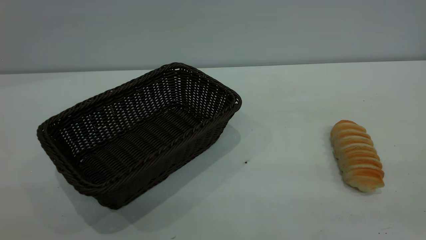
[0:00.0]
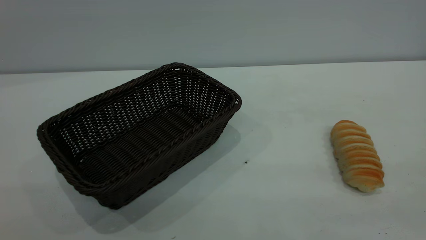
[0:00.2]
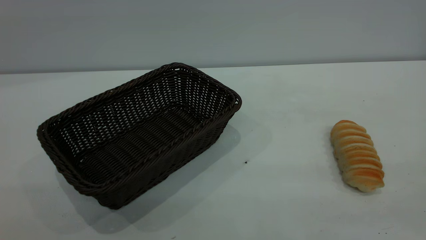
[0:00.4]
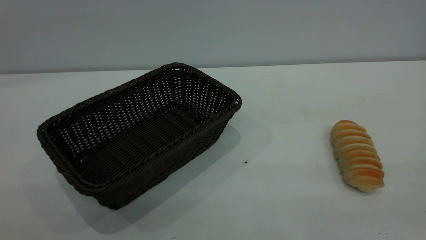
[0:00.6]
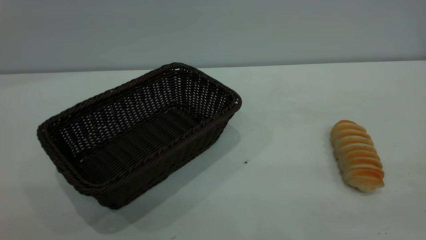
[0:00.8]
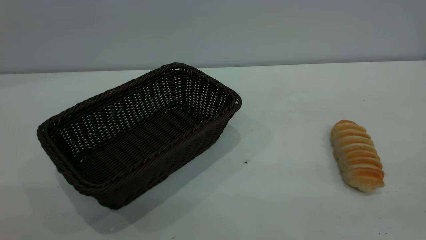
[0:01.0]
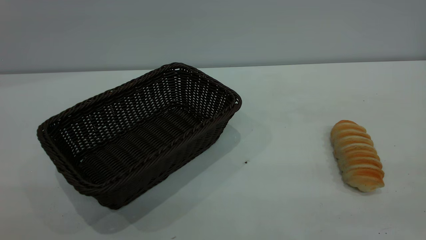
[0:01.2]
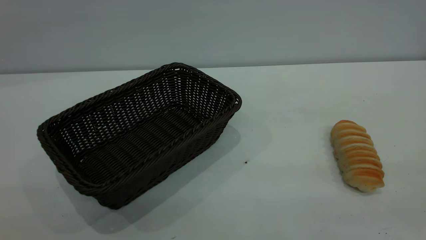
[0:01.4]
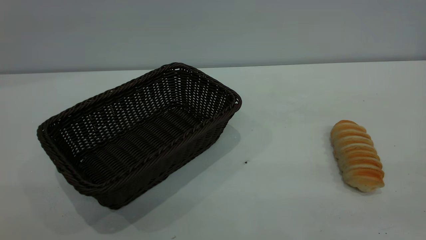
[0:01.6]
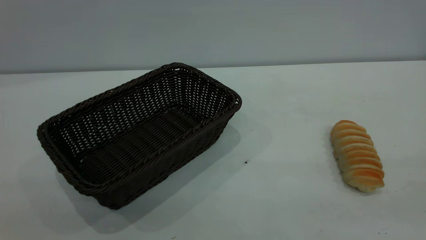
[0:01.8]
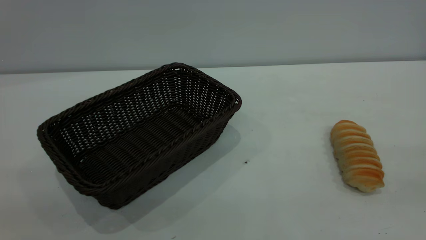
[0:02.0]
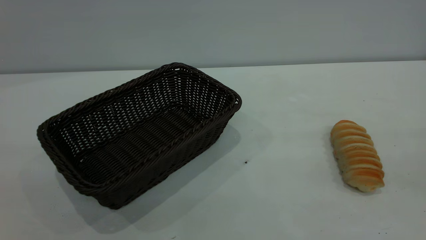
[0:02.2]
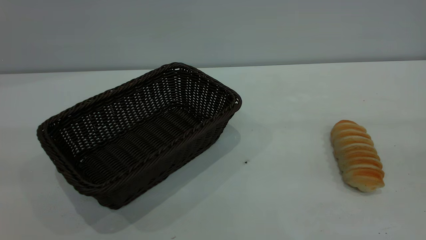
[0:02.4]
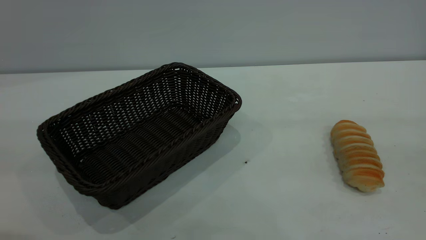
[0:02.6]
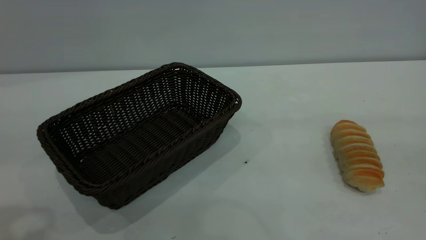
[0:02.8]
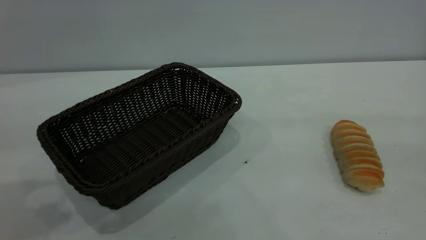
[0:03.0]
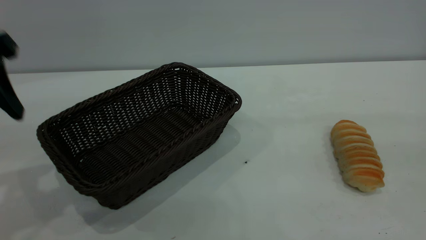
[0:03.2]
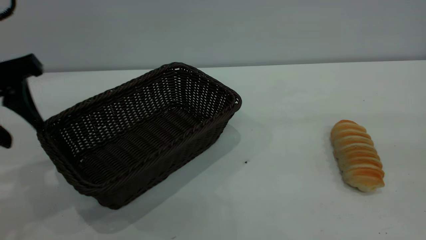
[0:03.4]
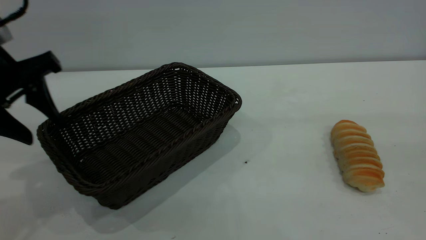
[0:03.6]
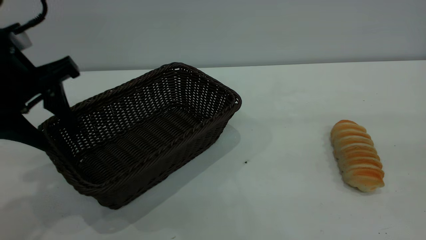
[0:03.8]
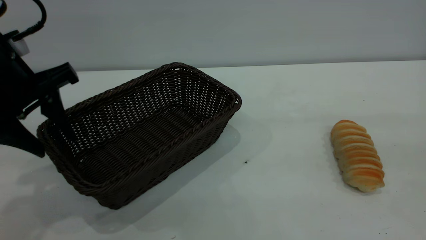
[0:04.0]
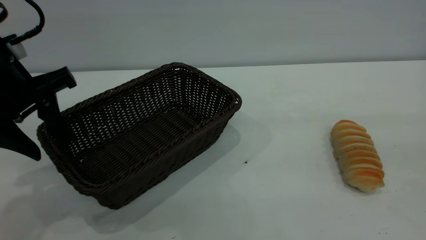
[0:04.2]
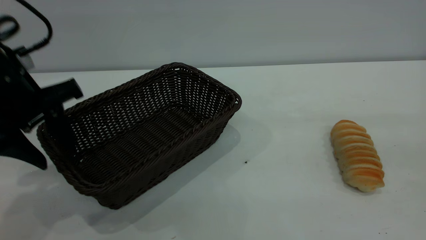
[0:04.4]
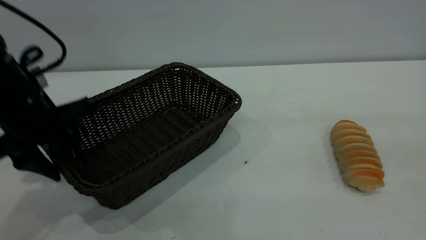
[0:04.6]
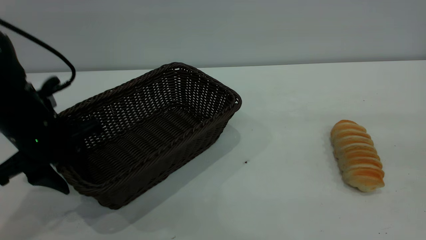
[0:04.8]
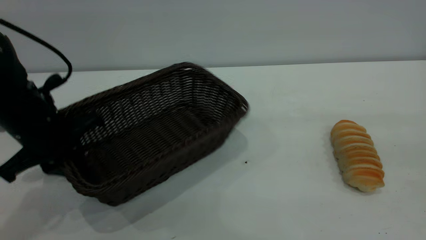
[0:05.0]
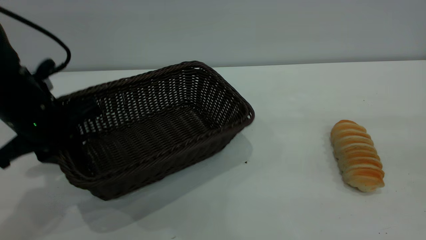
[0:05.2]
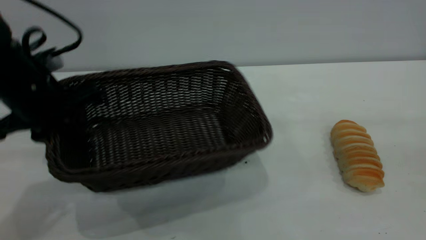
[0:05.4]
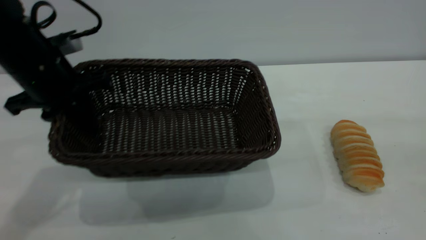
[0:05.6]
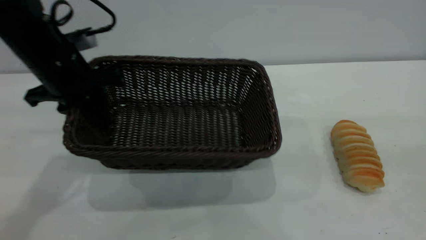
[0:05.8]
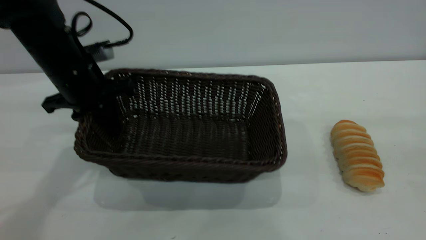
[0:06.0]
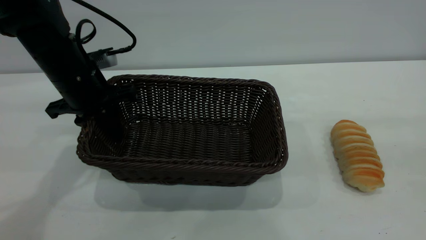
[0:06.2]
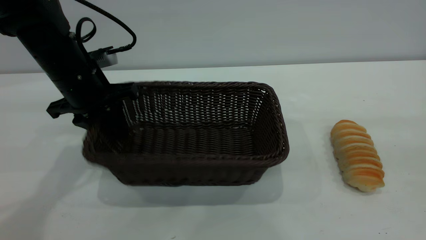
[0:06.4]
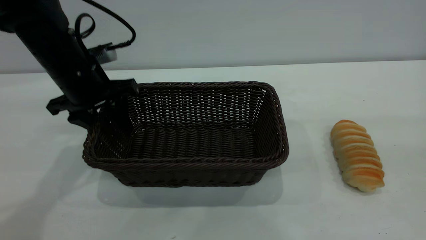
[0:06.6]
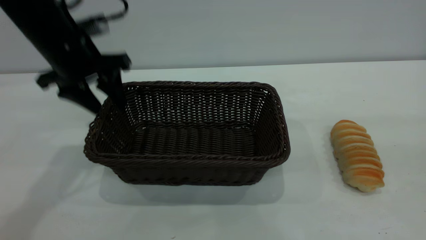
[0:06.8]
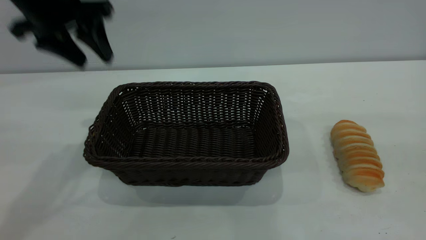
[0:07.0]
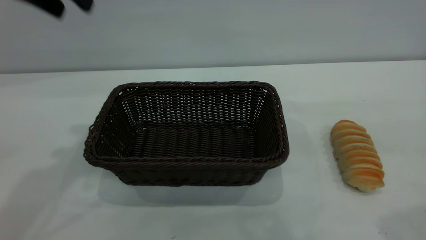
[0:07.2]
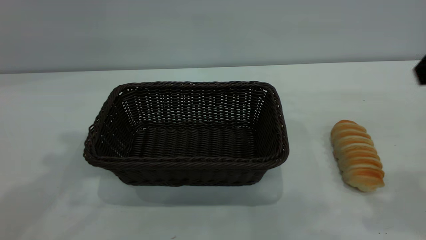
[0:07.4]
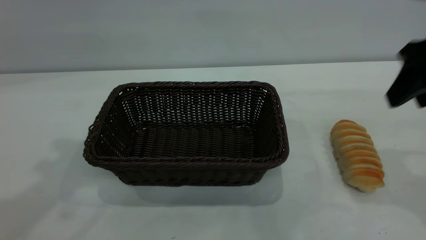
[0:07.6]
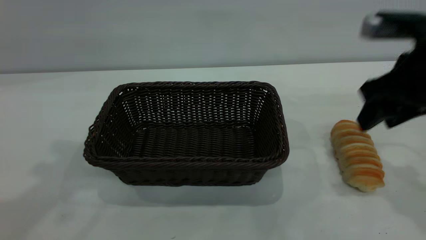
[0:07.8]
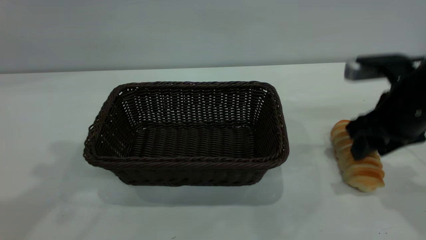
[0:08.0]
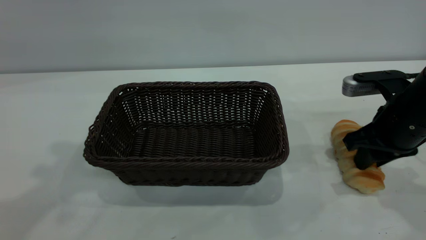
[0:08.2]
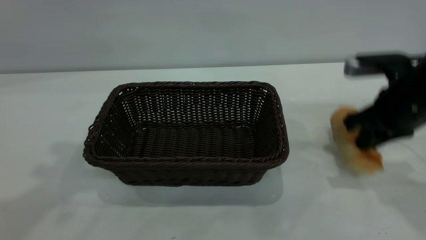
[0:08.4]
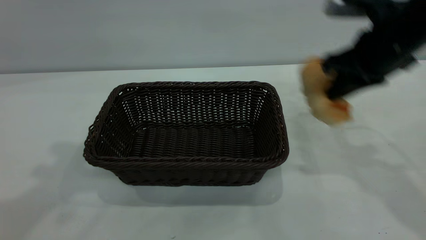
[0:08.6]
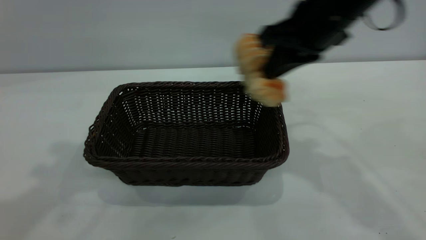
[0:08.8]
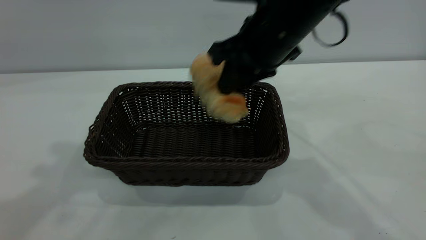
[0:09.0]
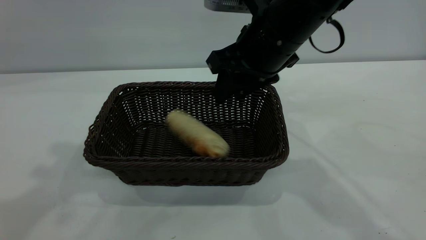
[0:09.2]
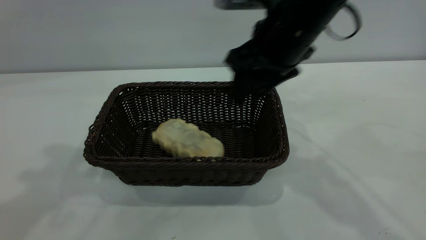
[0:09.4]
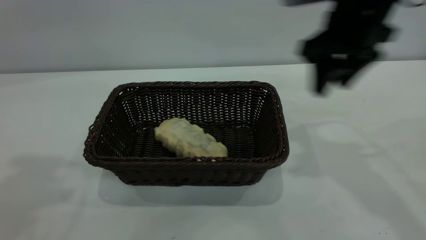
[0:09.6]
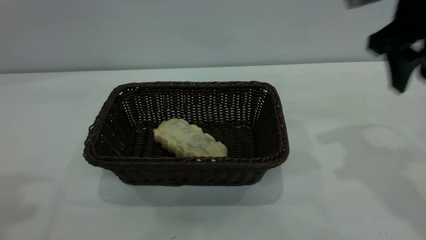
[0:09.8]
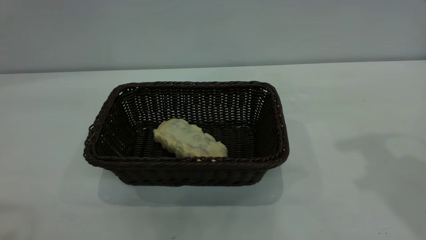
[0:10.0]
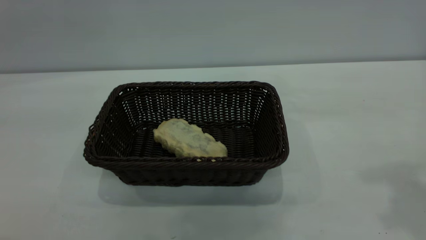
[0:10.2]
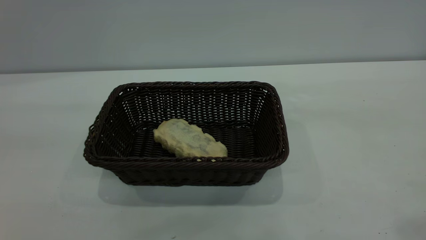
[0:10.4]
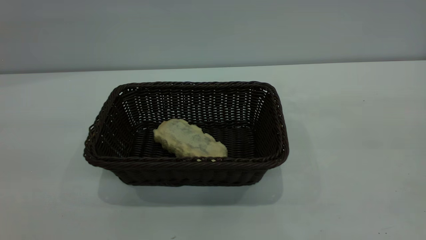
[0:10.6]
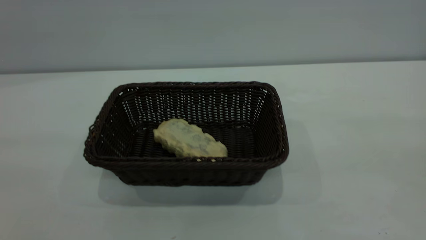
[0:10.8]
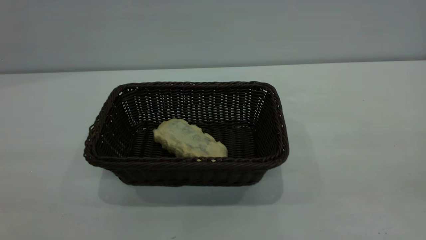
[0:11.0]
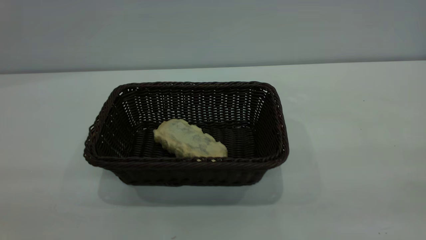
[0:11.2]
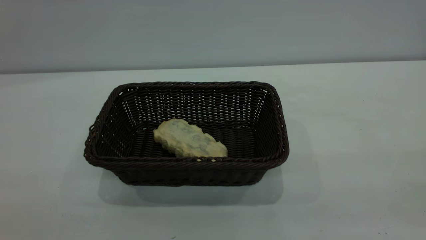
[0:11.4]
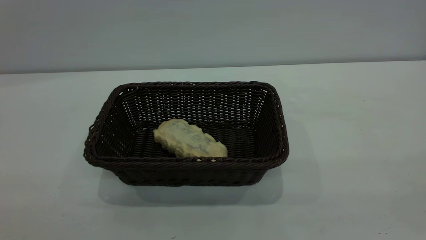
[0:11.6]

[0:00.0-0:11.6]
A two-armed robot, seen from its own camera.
Task of the whole recording: One hand grasps the black basket and places it in the middle of the table, while the other hand picks up the long bread and puts it into the black basket.
Step, 0:00.0 to 0:06.8: Move the basket to the center of view.
Step, 0:08.6 to 0:09.4: place the bread into the basket.
0:00.0 to 0:01.4: The two grippers keep their place.
0:02.8 to 0:04.4: The left gripper heads downward and forward, covering some 15 cm.
0:04.4 to 0:05.8: The left gripper goes roughly 10 cm forward, and closes its fingers.
0:05.8 to 0:07.2: The left gripper travels upward by approximately 20 cm, and opens up, while the right gripper goes approximately 10 cm forward.
0:07.2 to 0:08.8: The right gripper travels forward, to the left and downward by approximately 25 cm, and closes its fingers; the left gripper goes about 5 cm upward.
0:08.8 to 0:10.2: The right gripper heads to the right, upward and backward, covering roughly 25 cm, and opens, while the left gripper is displaced backward and to the left by approximately 15 cm.

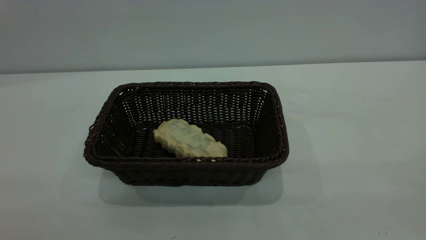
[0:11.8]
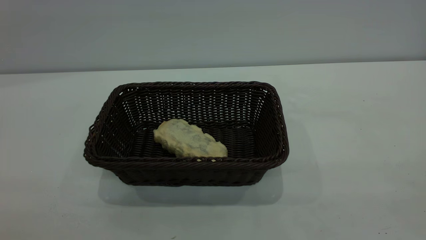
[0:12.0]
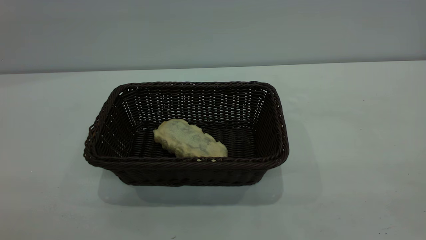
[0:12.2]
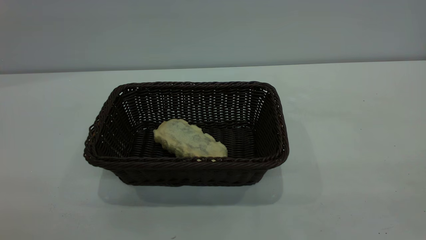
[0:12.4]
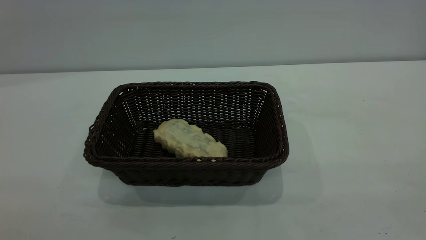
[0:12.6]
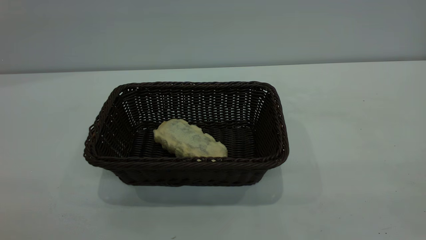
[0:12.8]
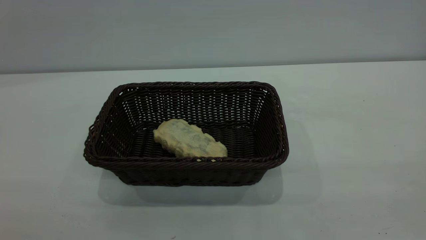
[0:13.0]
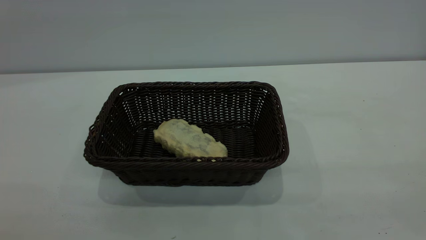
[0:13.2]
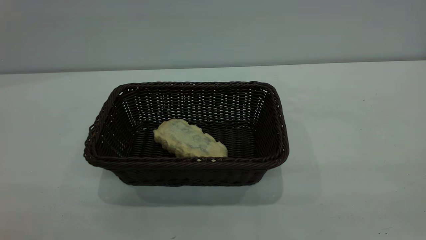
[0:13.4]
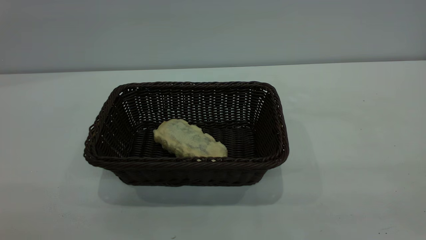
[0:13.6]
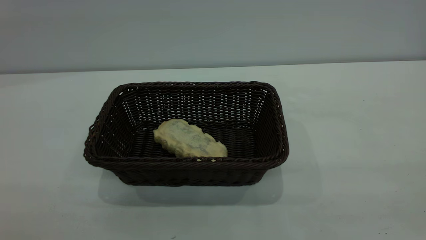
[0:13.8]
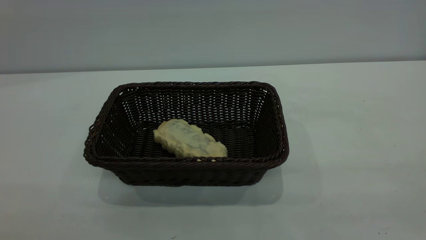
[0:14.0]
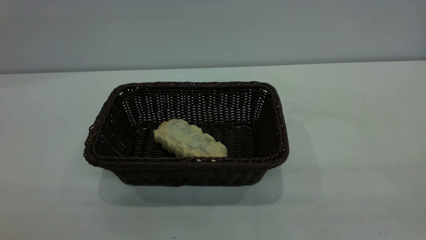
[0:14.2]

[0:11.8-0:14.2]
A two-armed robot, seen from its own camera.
Task of the whole recording: One hand grasps the black basket and places it in the middle of the table, while the other hand picks up the long bread and puts it into the black basket.
0:11.8 to 0:13.0: Both grippers stay put.
0:13.0 to 0:14.2: The two grippers keep their place.
